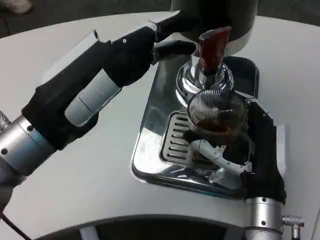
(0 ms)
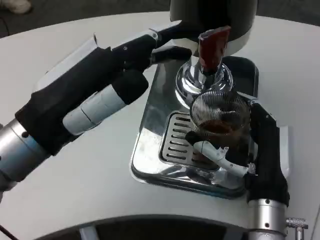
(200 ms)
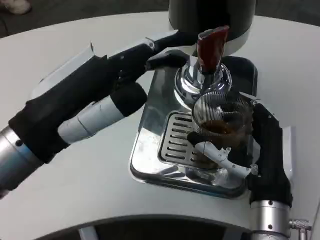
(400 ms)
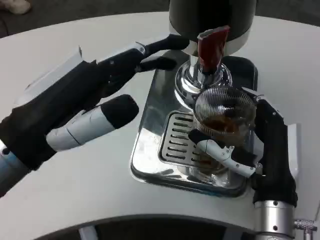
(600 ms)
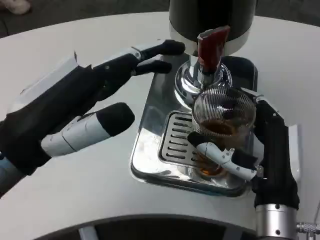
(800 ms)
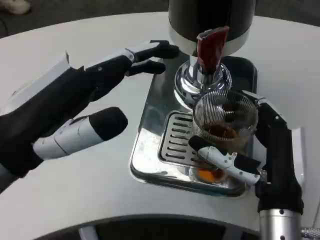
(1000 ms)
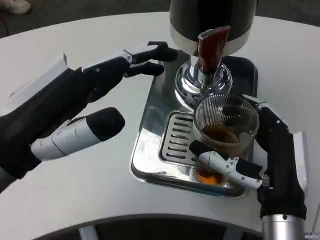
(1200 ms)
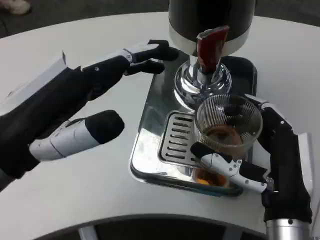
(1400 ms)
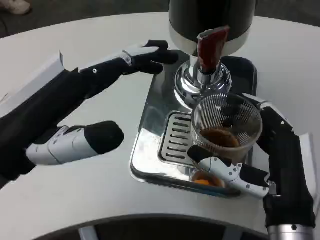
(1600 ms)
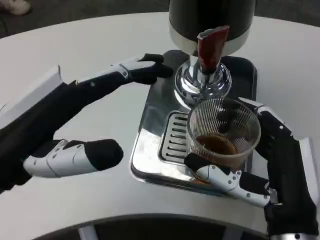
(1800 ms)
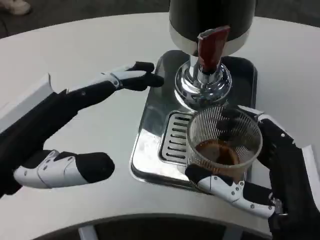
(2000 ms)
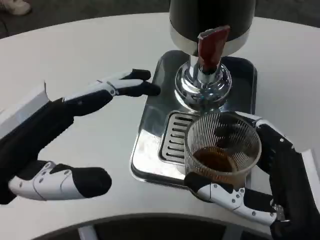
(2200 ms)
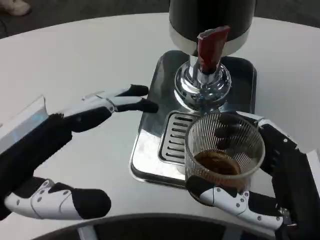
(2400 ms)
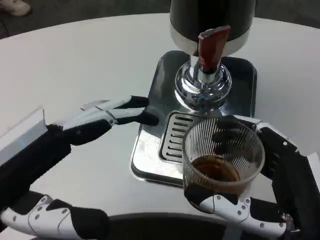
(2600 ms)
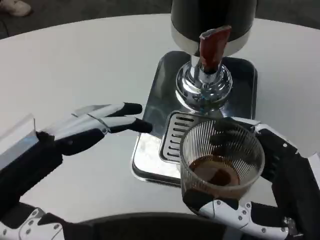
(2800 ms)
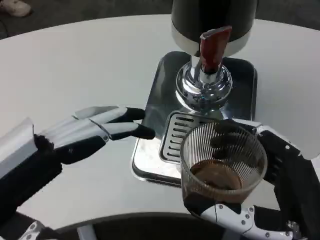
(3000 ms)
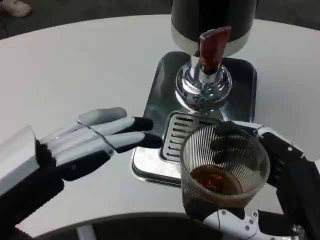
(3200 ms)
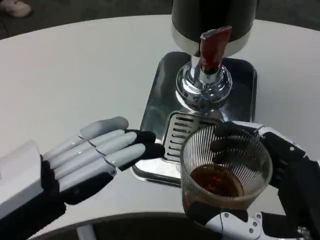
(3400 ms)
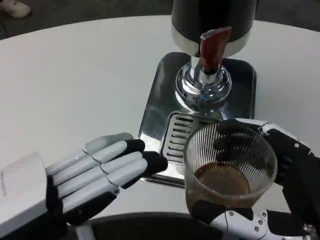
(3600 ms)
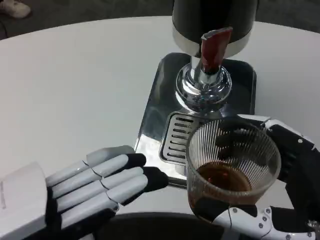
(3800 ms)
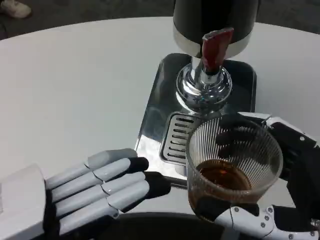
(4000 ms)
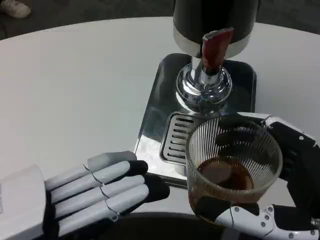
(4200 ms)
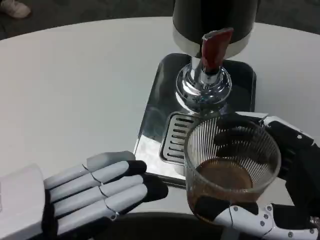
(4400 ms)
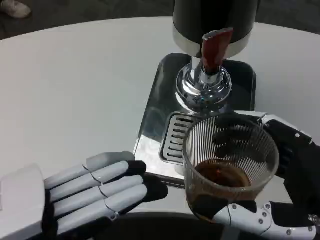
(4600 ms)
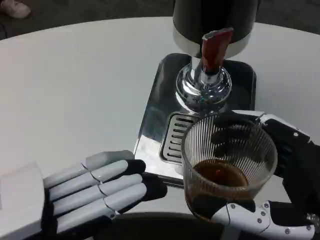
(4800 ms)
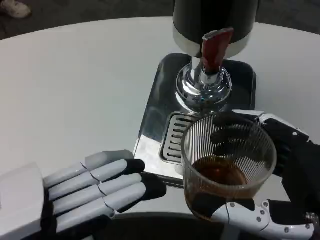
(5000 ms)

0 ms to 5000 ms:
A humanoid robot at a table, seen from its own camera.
Task of the whole recording: Grasp the cup under the faucet to collect the drink, then remove the cup.
0 ms to 1600 ms: The right hand shifts approximately 5 cm backward; the left hand moves about 5 cm.
1600 ms to 3400 ms: The hands both shift backward by about 5 cm.

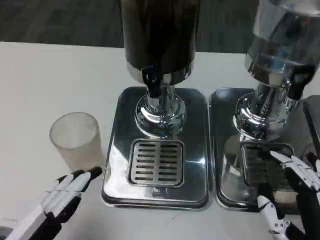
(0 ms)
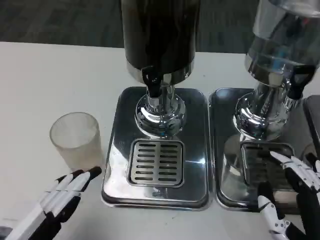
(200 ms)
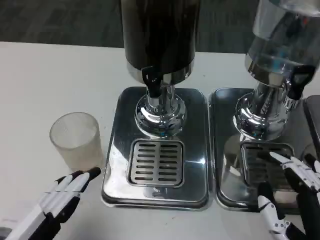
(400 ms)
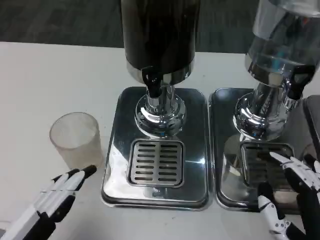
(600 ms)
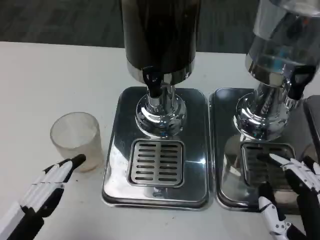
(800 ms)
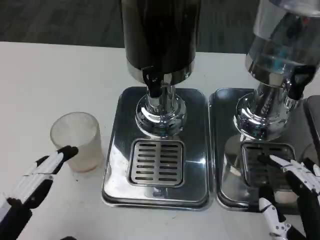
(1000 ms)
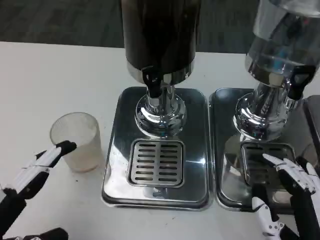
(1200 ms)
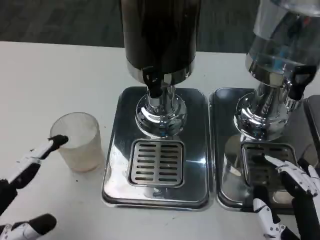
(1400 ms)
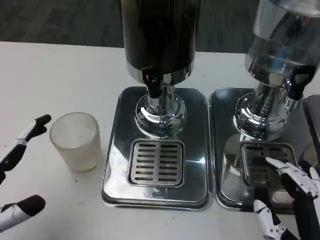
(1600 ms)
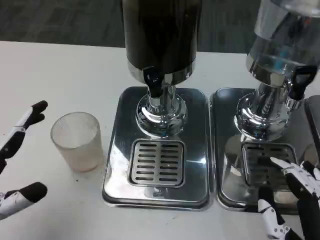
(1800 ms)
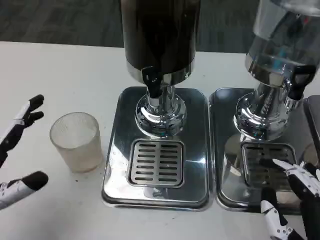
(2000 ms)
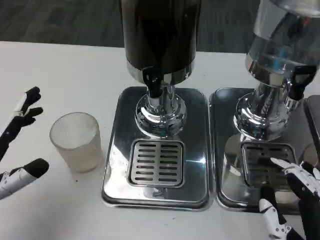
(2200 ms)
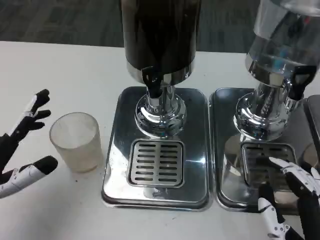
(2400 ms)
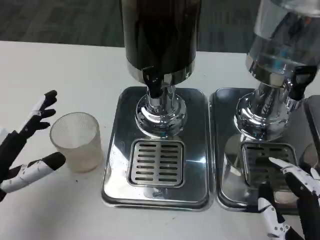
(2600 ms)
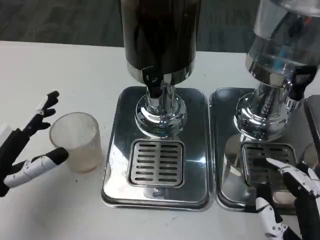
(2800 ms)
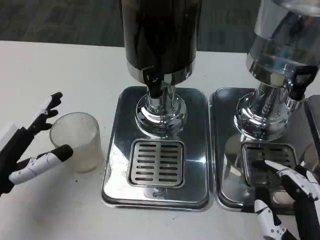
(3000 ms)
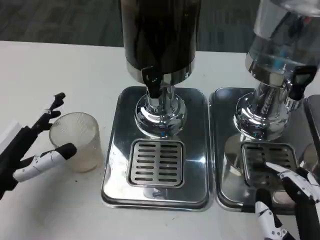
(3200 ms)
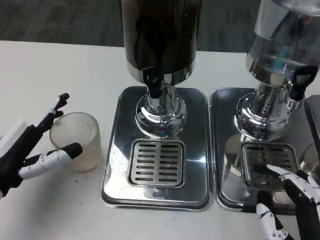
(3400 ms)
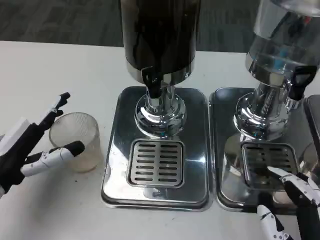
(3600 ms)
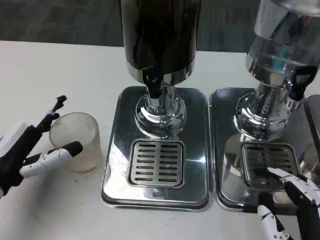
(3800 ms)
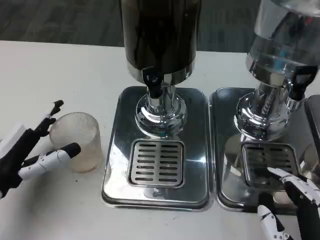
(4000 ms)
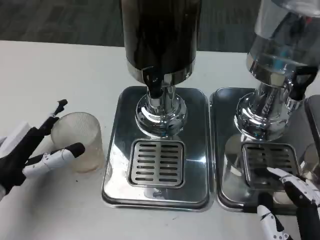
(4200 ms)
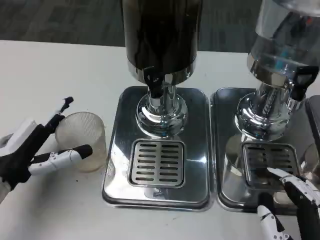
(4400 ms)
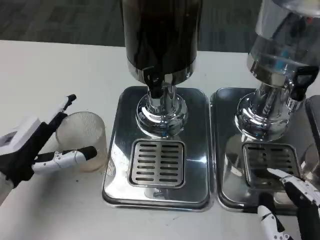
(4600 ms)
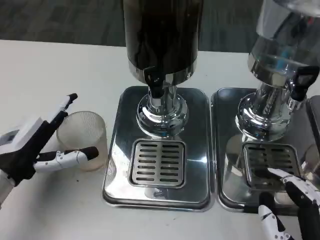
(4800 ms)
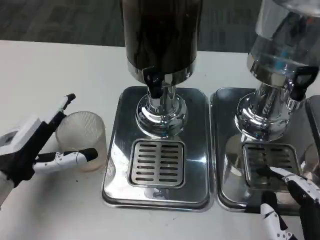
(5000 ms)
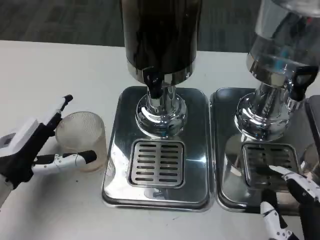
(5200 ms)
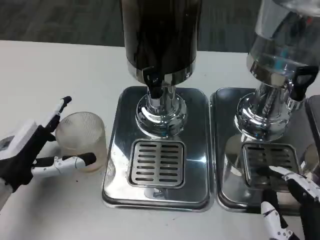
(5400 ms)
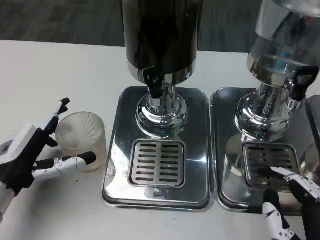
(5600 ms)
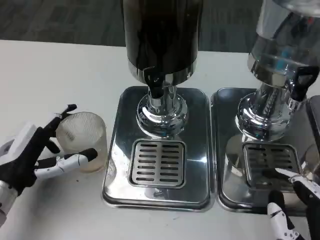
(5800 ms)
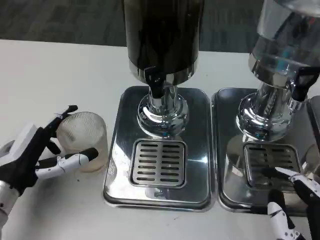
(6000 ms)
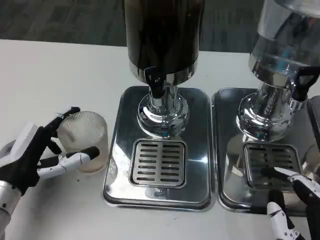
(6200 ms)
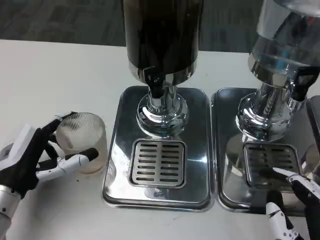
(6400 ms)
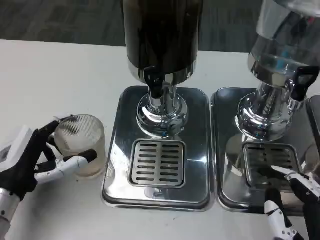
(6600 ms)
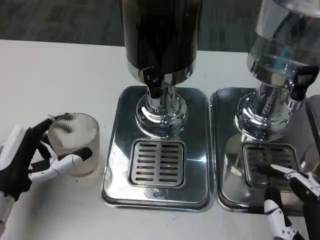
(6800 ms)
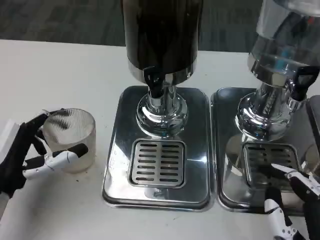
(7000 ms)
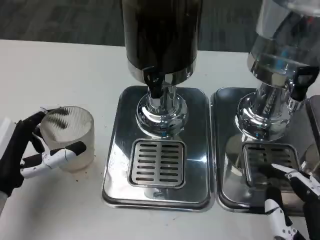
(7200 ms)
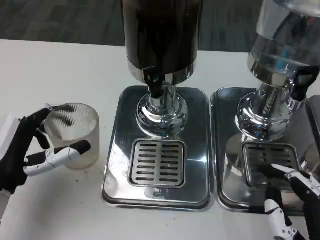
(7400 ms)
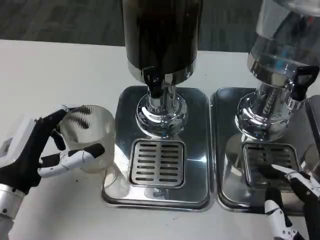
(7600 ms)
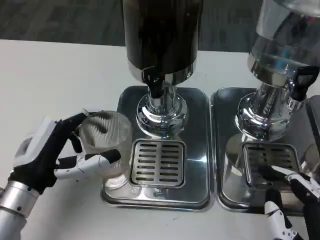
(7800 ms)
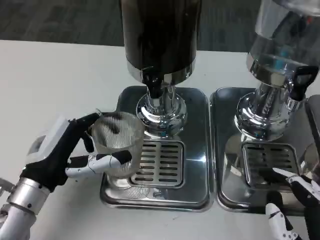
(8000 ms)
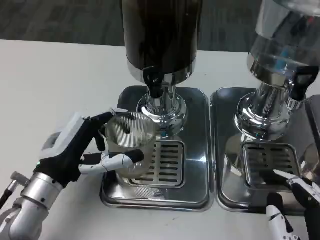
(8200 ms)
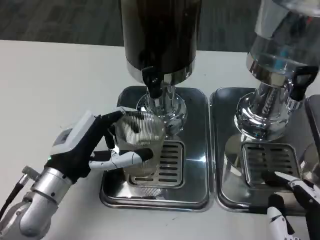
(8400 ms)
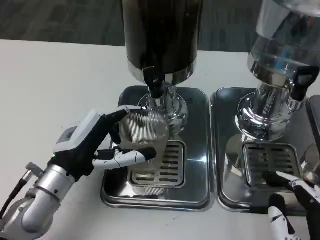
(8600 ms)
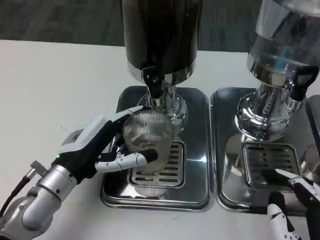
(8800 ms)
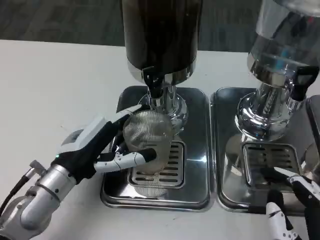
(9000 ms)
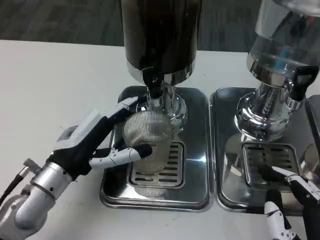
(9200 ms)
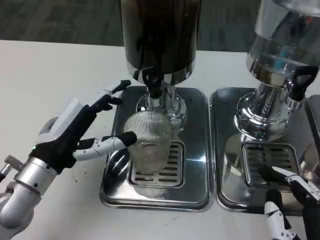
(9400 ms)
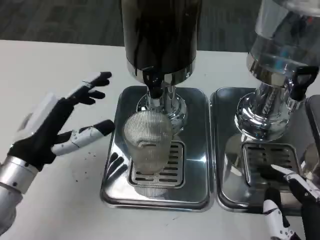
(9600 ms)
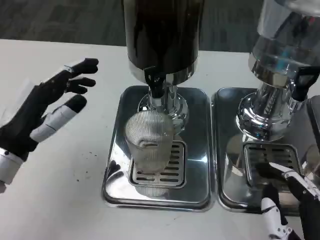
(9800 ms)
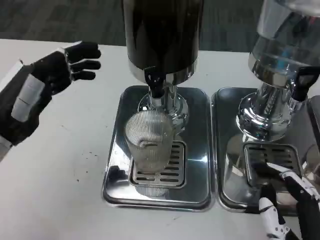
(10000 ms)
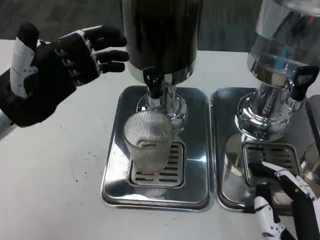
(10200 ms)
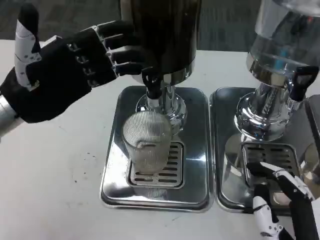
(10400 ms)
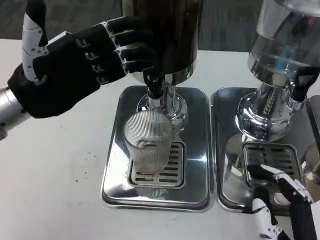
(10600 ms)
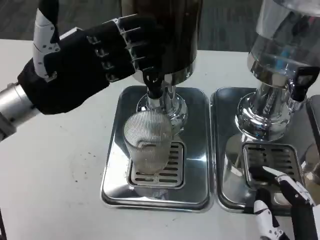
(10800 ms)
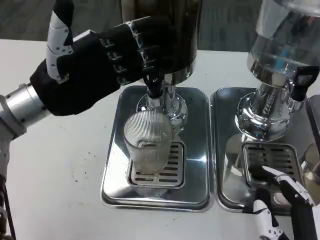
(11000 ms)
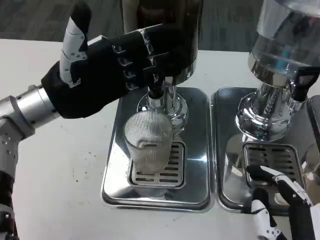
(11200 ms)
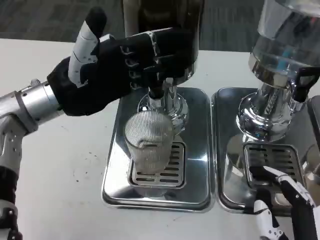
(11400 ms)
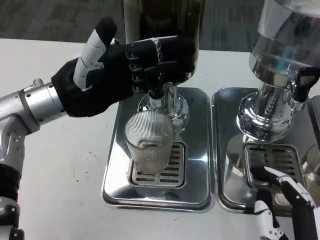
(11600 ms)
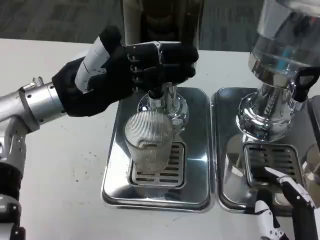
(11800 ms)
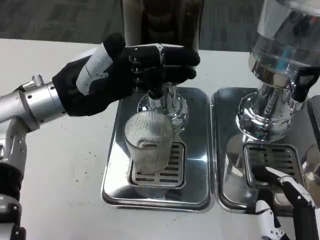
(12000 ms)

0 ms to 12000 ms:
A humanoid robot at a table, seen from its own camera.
Task of the whole recording: Grasp the cup under the faucet to collect the drink, then remove the cup.
0 ms to 1600 ms: The left hand goes roughly 5 cm to the left.
1600 ms to 3000 ms: The left hand goes approximately 10 cm forward.
3000 ms to 7600 ms: The hands make only small movements.
7600 ms to 9000 ms: The left hand moves to the right, about 5 cm.
9000 ms to 10400 ms: The left hand goes approximately 15 cm upward, to the left and forward.
10400 ms to 12000 ms: The left hand shifts roughly 5 cm to the right.

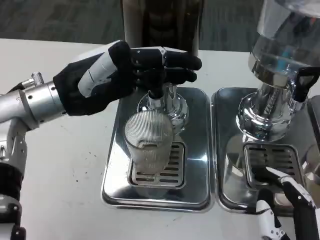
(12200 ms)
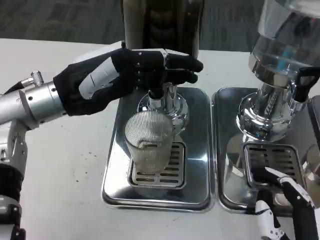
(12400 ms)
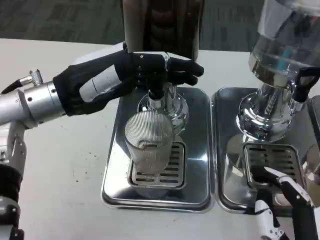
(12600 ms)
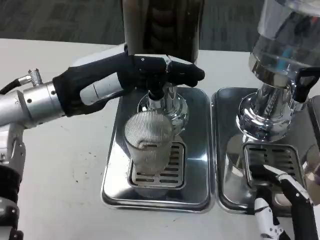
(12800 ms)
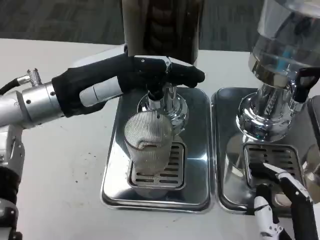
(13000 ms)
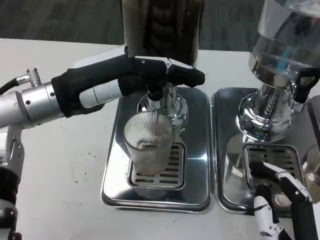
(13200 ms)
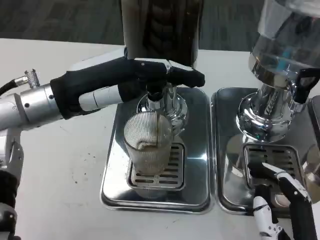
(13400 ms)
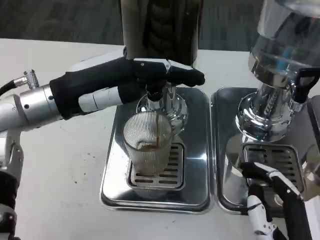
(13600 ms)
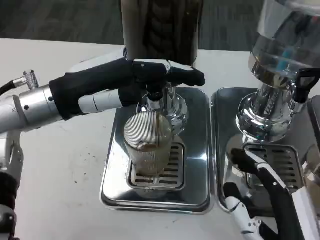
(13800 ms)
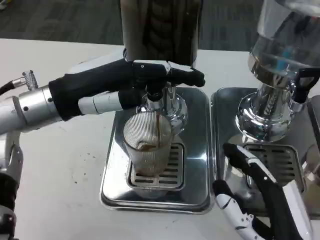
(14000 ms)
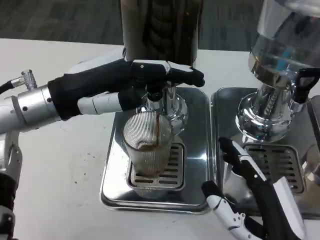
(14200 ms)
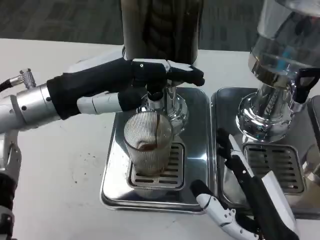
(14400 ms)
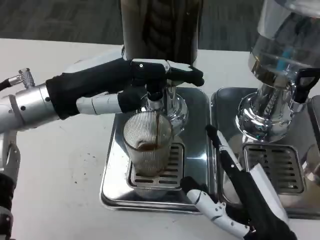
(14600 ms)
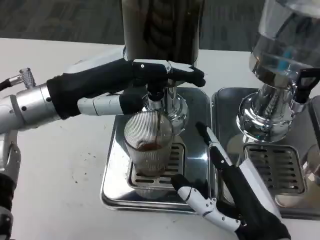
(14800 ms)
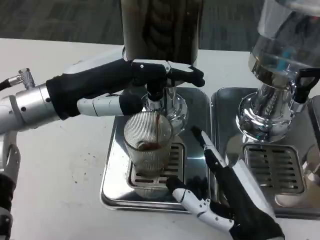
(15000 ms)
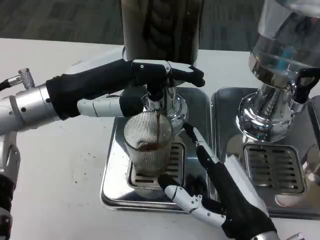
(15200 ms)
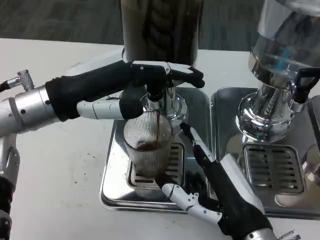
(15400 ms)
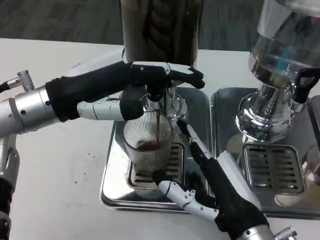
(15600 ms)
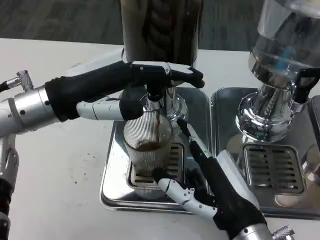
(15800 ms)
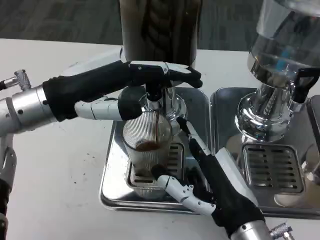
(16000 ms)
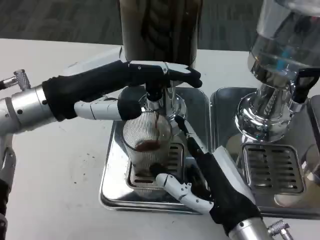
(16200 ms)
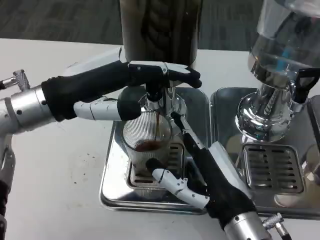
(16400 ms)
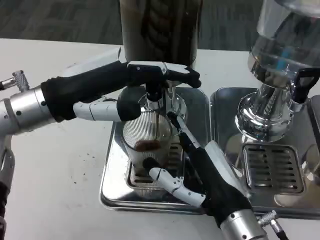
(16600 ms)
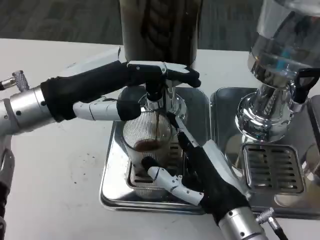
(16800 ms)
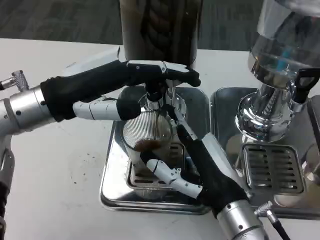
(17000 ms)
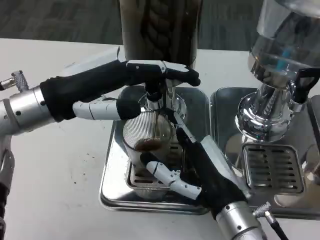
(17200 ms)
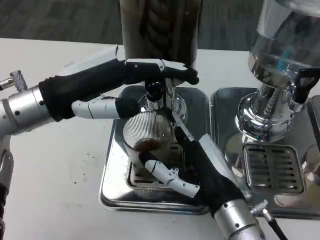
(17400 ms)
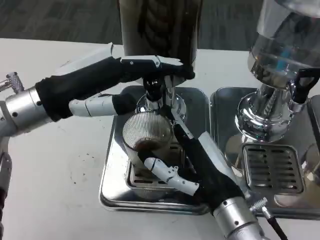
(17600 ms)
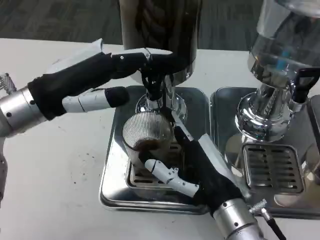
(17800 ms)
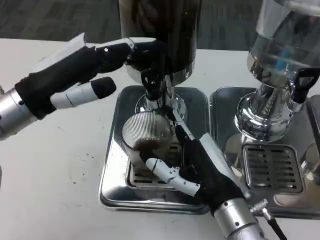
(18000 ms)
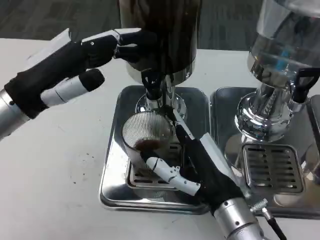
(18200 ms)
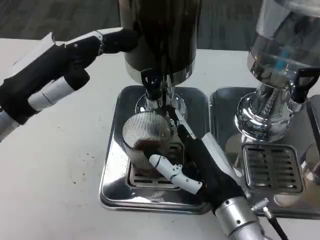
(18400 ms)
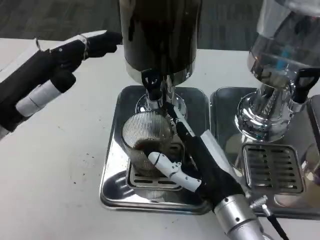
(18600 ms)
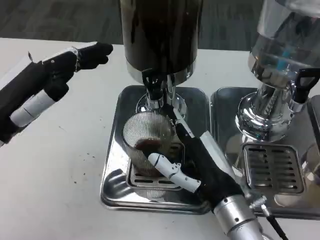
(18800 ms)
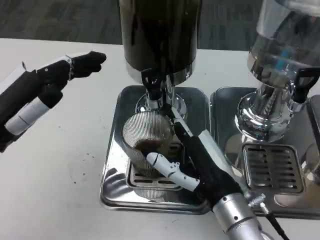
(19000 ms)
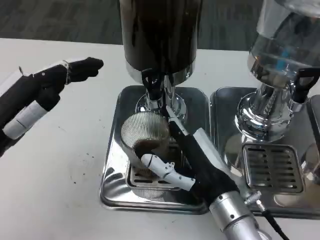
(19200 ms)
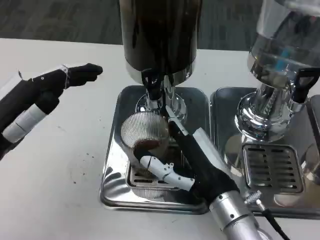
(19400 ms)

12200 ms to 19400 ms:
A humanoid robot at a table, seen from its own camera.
Task of the whole recording: Grasp the cup under the faucet to collect the drink, then remove the cup.
12200 ms to 13600 ms: The hands move only a little.
13600 ms to 15000 ms: The right hand moves forward, some 5 cm.
15000 ms to 16600 ms: The hands move only a little.
18000 ms to 19400 ms: The left hand shifts about 5 cm backward.
